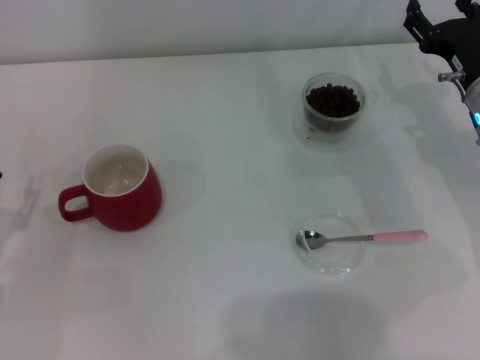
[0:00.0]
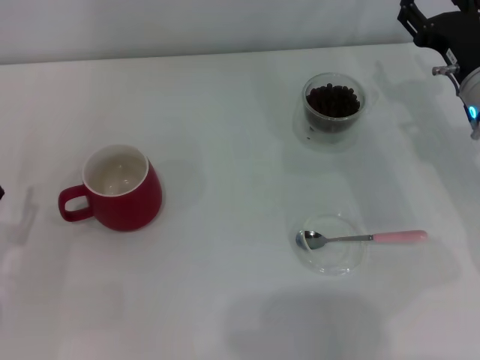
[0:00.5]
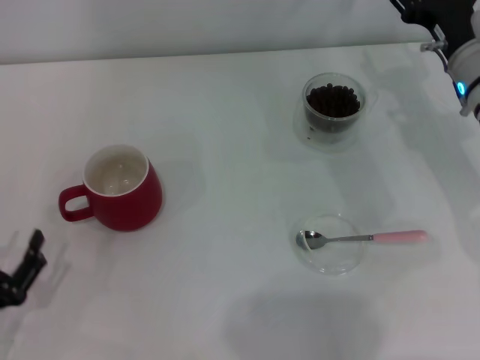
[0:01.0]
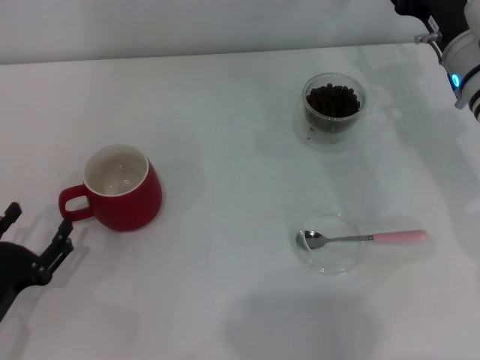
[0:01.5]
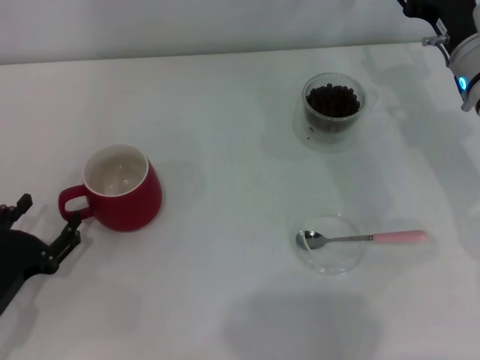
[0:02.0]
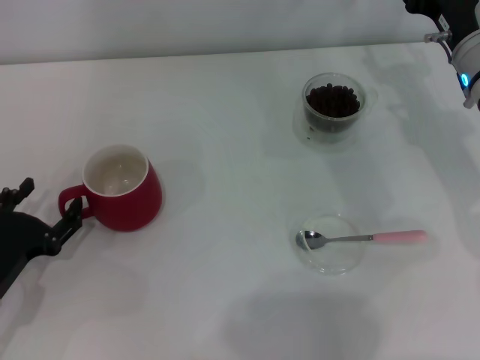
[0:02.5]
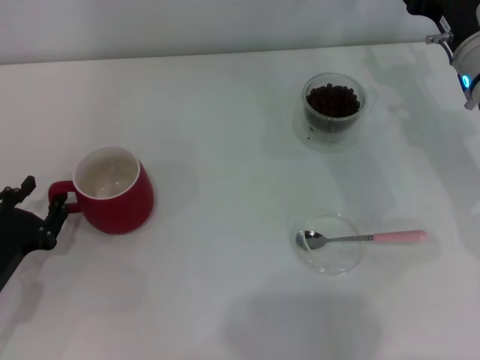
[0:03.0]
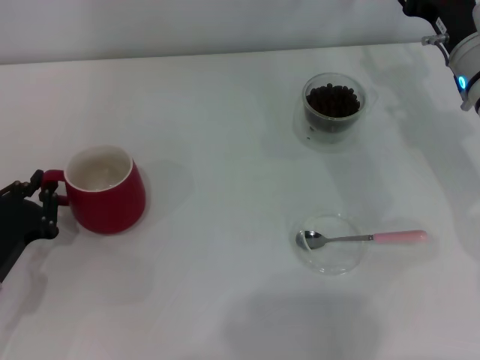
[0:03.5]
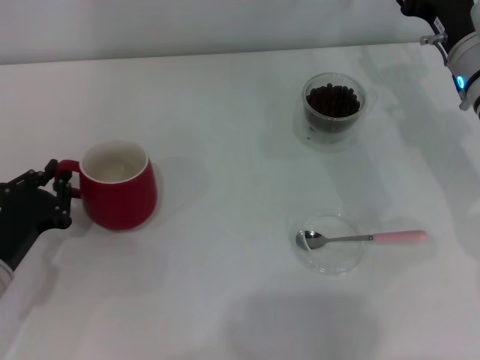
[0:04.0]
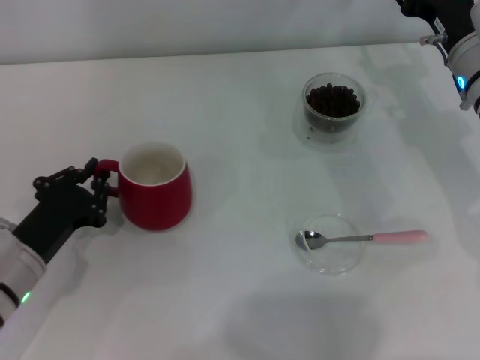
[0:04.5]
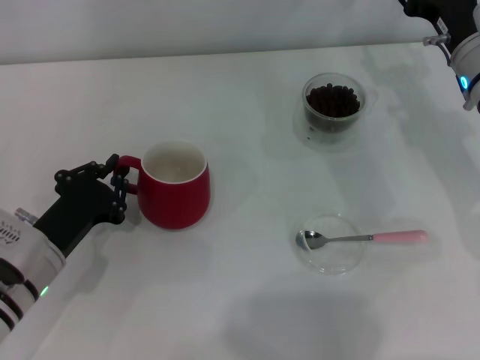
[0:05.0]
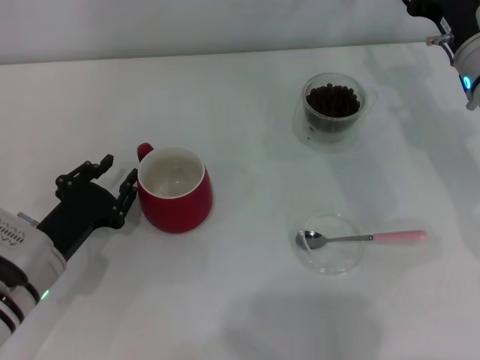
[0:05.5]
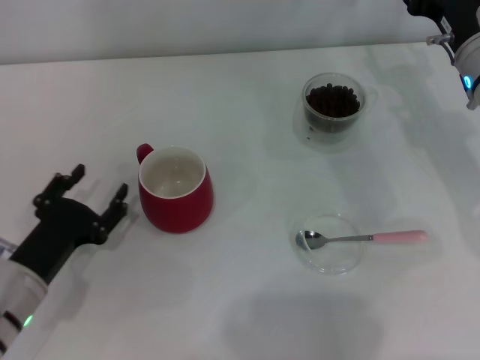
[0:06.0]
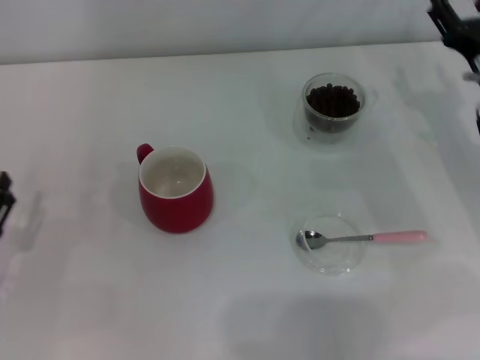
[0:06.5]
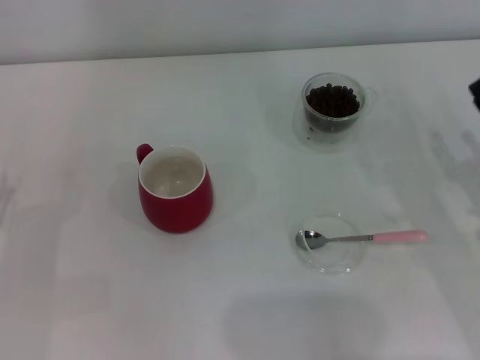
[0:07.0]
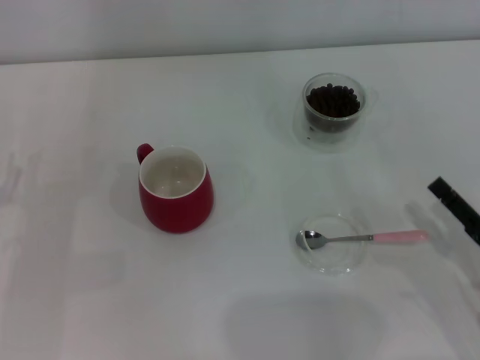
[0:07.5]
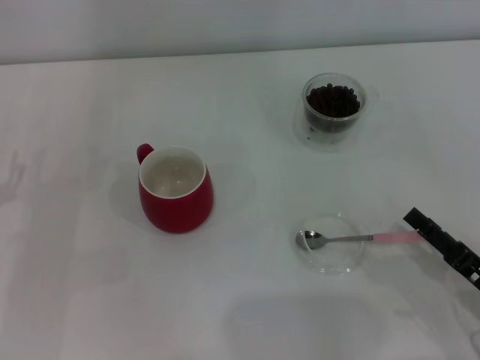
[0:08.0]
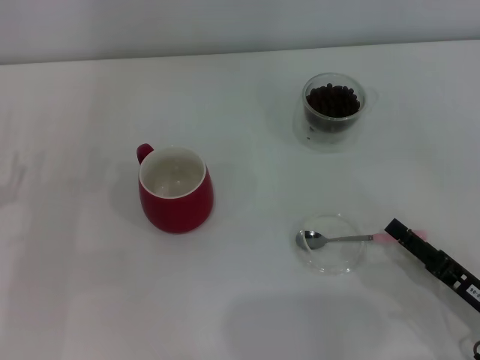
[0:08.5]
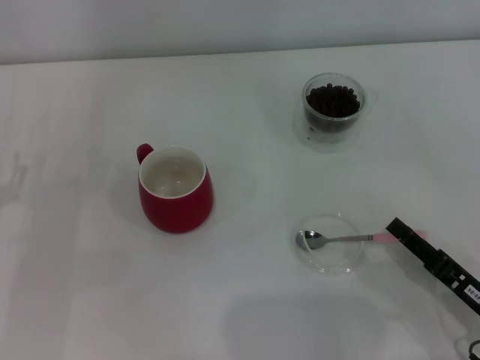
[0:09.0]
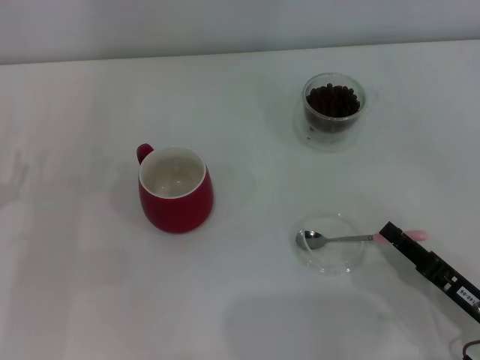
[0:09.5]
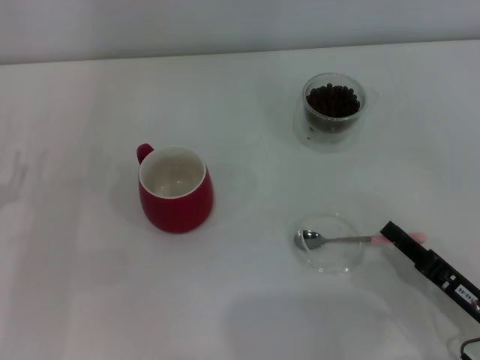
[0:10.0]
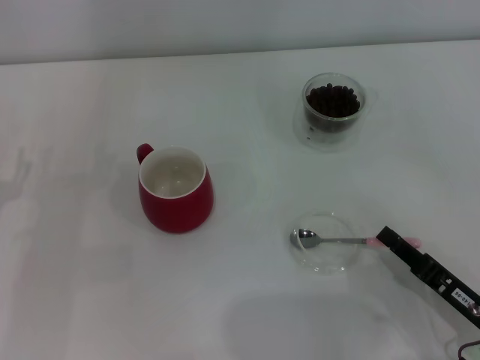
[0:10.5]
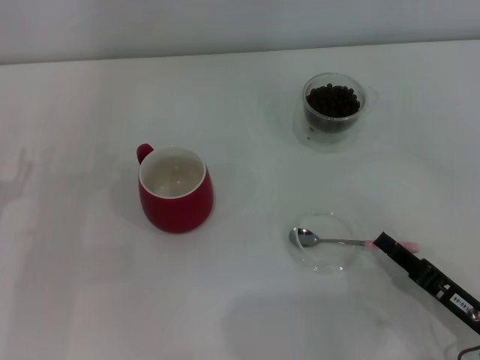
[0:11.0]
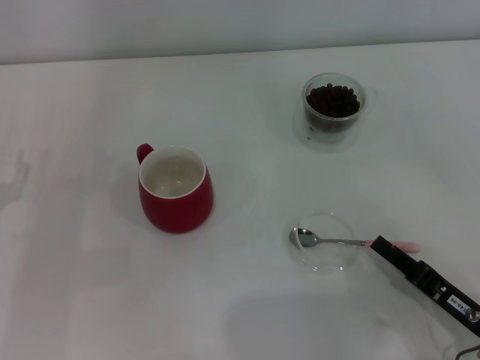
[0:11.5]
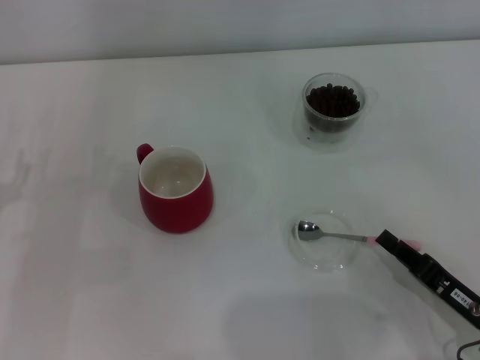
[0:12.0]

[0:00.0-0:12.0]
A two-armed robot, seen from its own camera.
Task of the whole recording: Use a pink spoon to take out the coffee beans from the glass and pour them into the red cup.
Step, 0:00.0 to 0:05.5: Move the cup to the center of view with the left gripper.
0:00.0 to 0:02.0: The left gripper reaches about 10 cm backward, then returns.
0:02.0 to 0:04.0: The left gripper closes its fingers.
0:04.0 to 0:06.0: The left gripper opens.
0:06.0 to 0:08.0: The right gripper moves backward, about 25 cm. Meanwhile the left gripper is displaced to the left by roughly 10 cm.
0:08.0 to 0:10.0: The right gripper closes.
0:10.0 to 0:12.0: The grippers make only small movements.

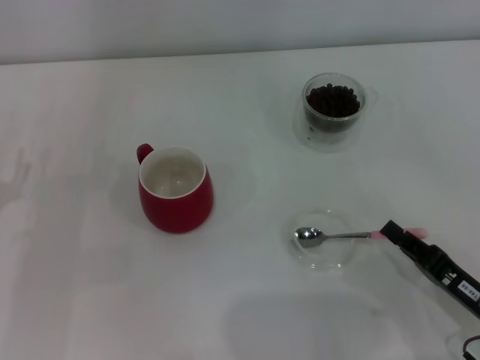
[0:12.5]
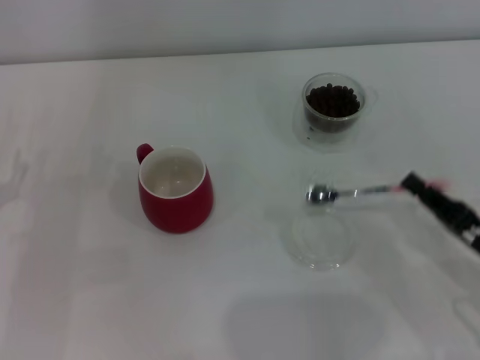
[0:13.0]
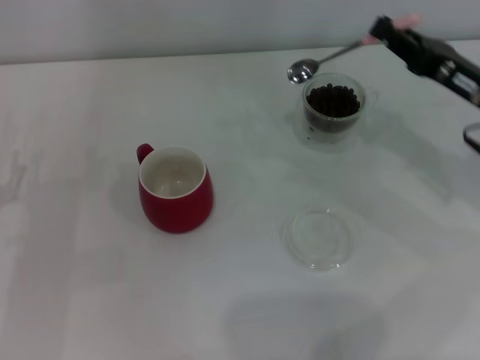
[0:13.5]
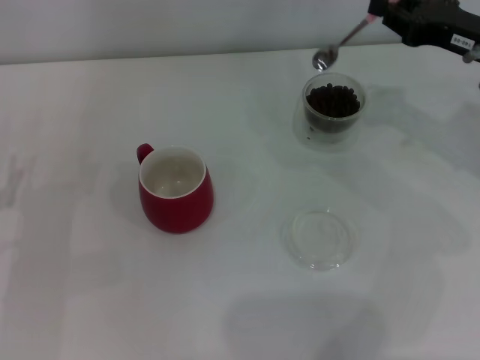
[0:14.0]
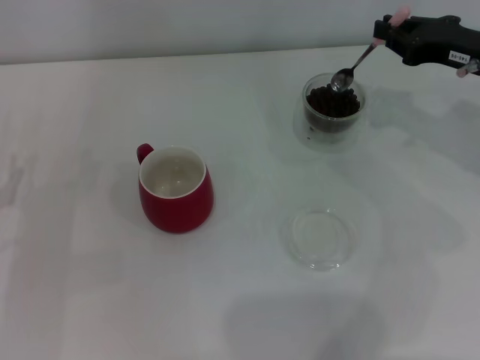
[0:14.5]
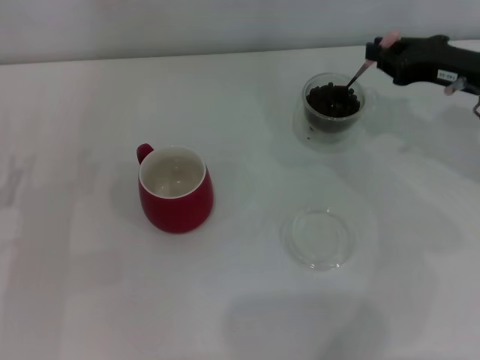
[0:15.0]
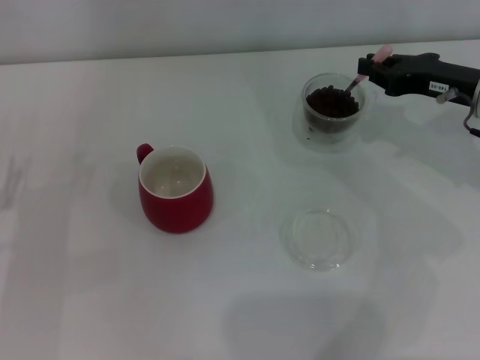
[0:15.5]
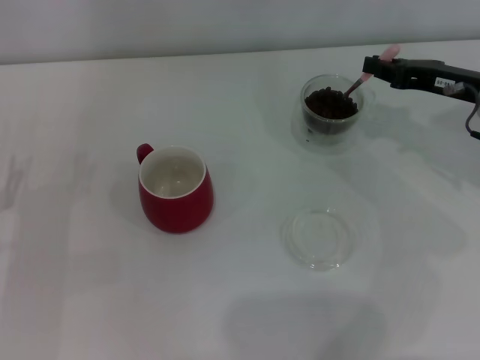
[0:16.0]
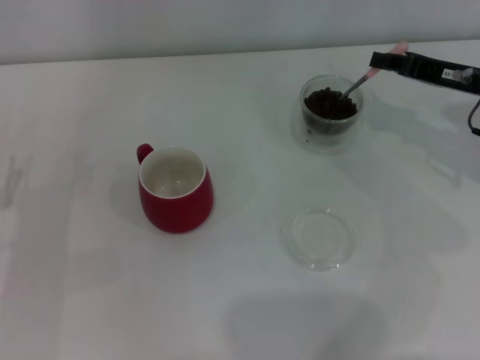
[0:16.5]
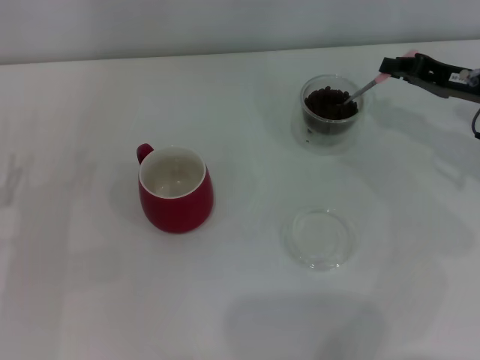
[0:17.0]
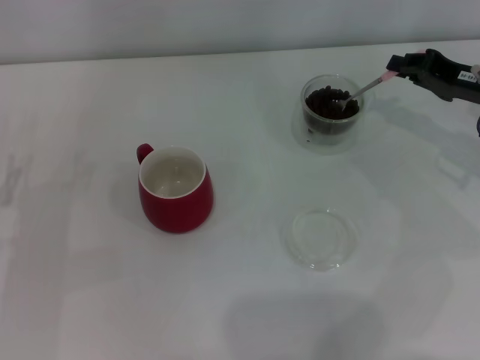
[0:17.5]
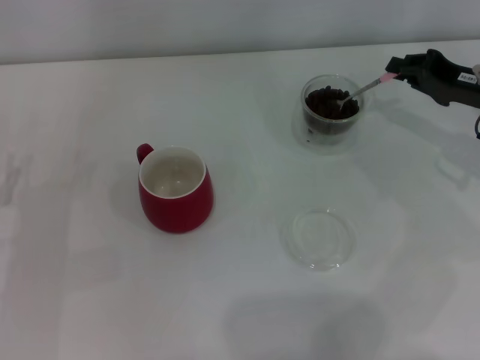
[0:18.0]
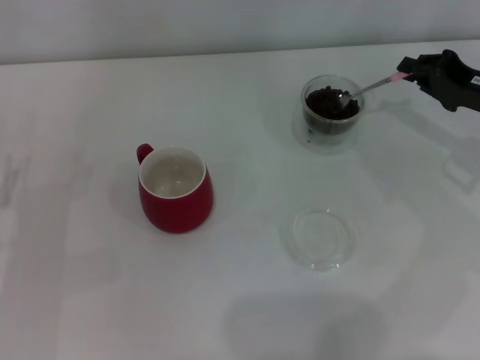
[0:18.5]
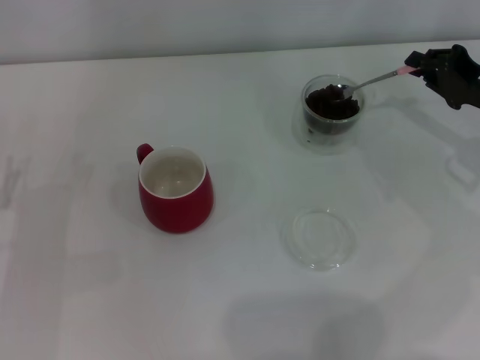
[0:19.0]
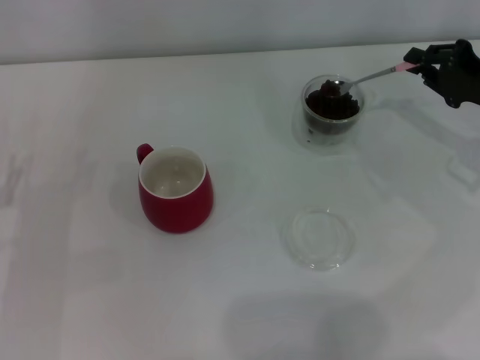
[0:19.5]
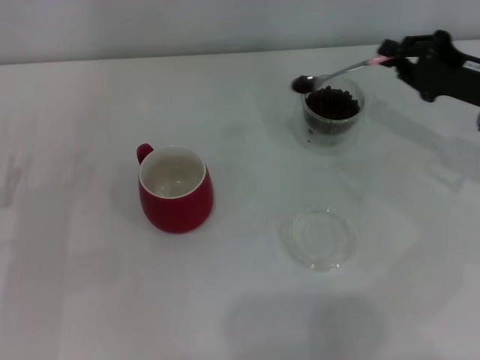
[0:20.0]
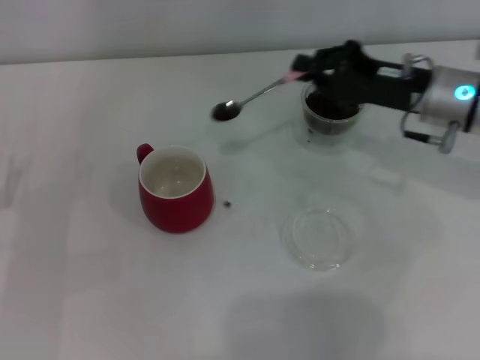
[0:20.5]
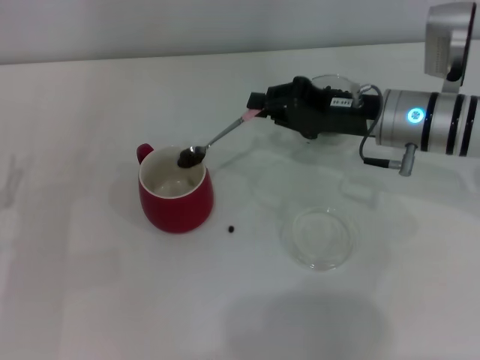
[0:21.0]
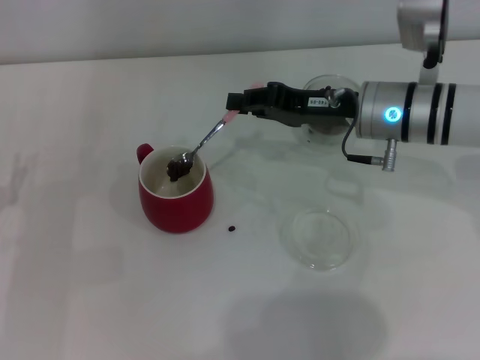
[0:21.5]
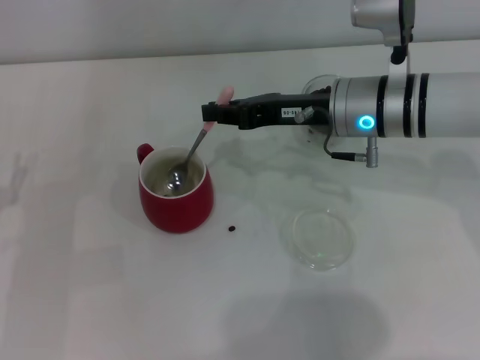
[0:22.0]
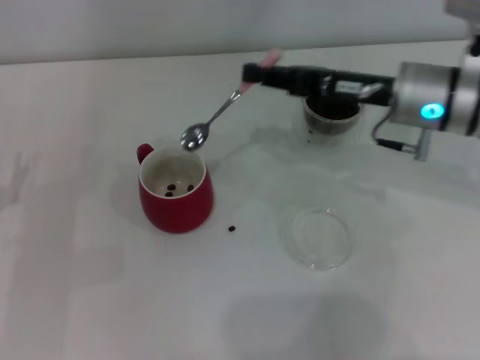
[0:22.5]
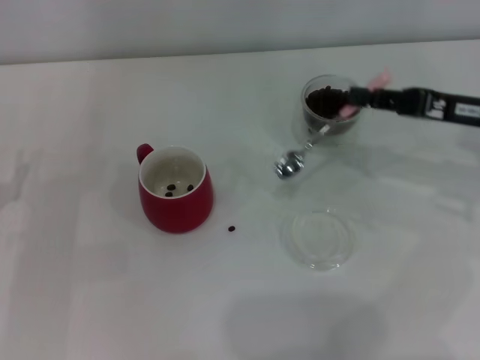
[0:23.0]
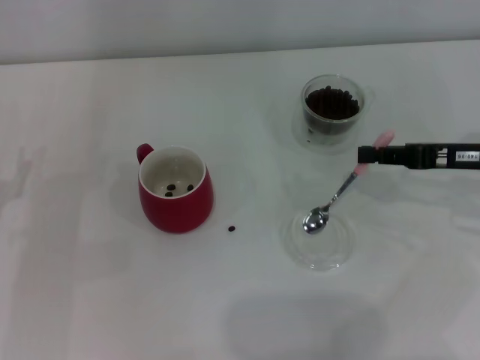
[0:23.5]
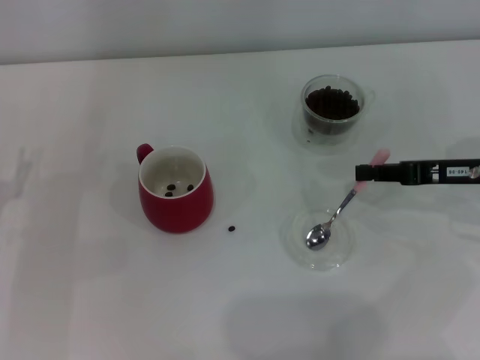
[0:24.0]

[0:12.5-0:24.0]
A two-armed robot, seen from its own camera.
Task of the whole recording: Use a pink spoon to take out the coffee beans from the glass and pour them into the red cup.
Step, 0:13.0 to 0:21.5: Scoop a spoonful of beans into the cup with the right gripper.
0:12.5 to 0:14.5: The right gripper shifts approximately 25 cm forward and upward.
0:18.5 to 0:20.0: The grippers make only small movements.
0:20.0 to 0:22.0: The right gripper heads to the left, covering approximately 15 cm.
0:22.0 to 0:24.0: The right gripper moves to the right and backward, some 15 cm.

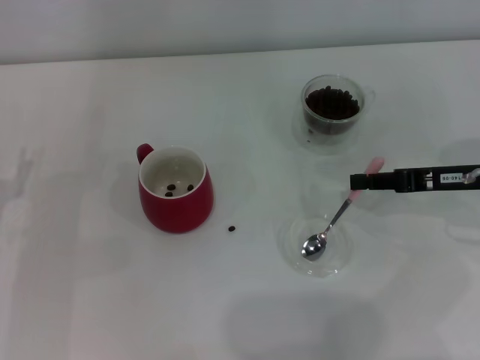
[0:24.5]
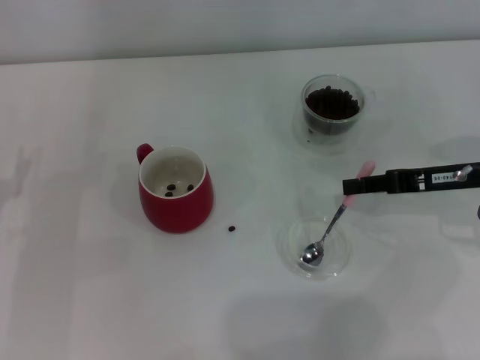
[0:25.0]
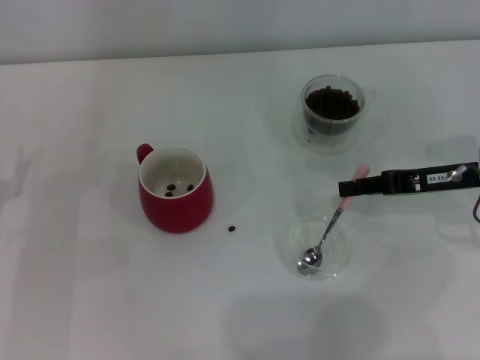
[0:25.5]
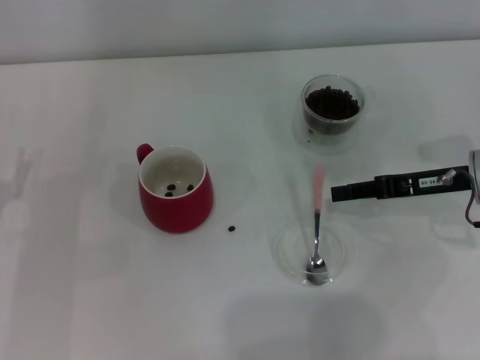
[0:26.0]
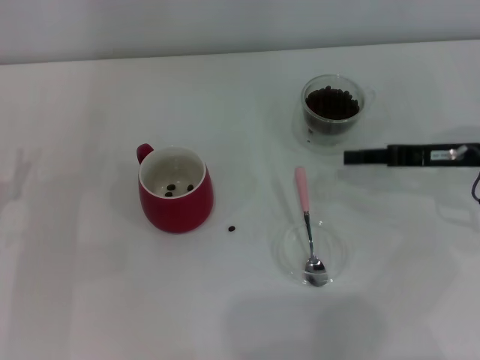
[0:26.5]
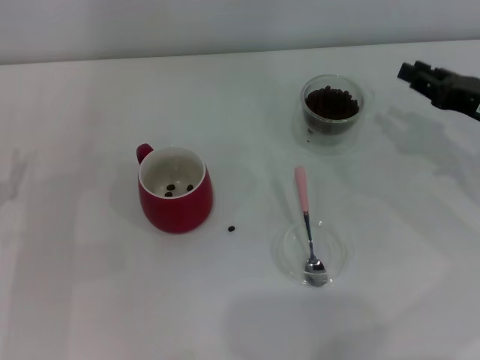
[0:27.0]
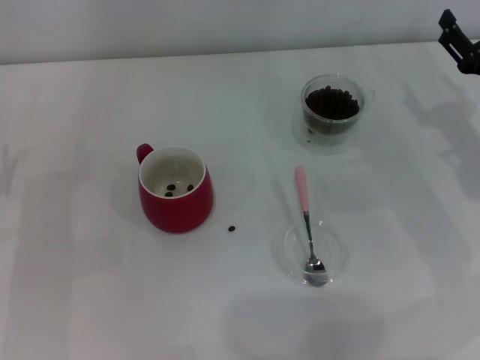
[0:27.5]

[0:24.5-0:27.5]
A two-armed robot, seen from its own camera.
Task of the whole recording: Use a pink spoon to take out the coffee beans from the glass and pour them into the red cup.
0:24.5 to 0:26.0: The grippers move only a little.
0:26.0 to 0:27.5: The right gripper opens.
